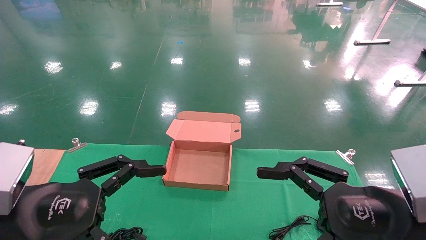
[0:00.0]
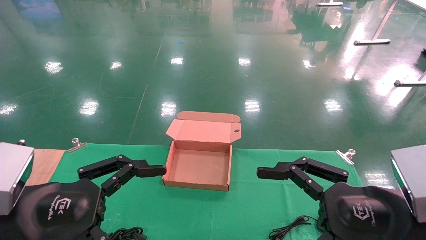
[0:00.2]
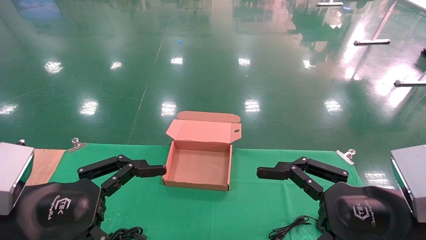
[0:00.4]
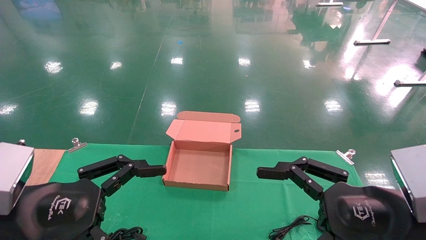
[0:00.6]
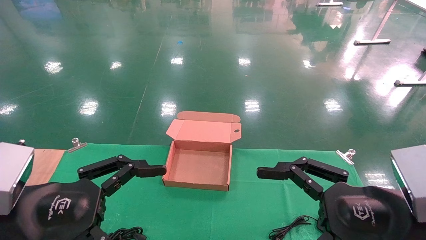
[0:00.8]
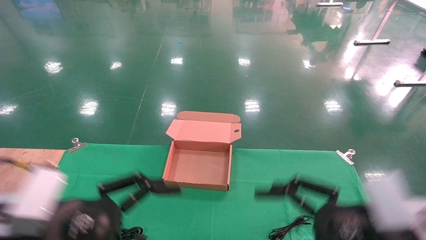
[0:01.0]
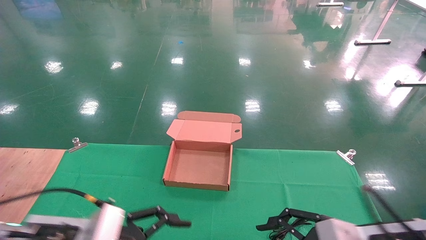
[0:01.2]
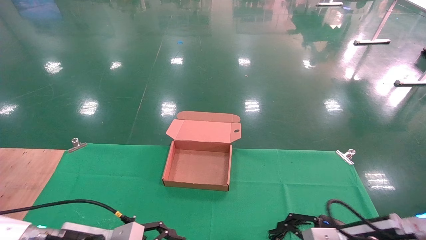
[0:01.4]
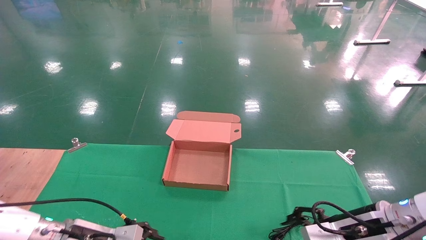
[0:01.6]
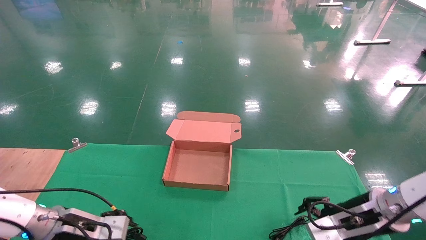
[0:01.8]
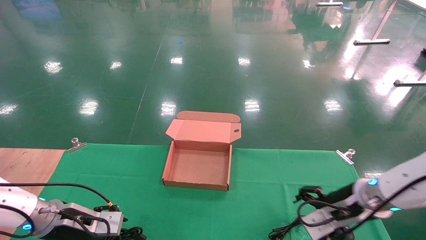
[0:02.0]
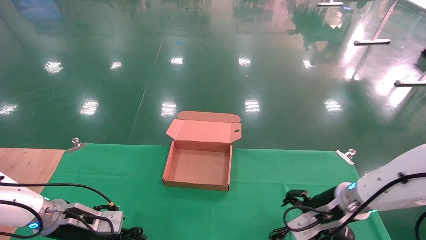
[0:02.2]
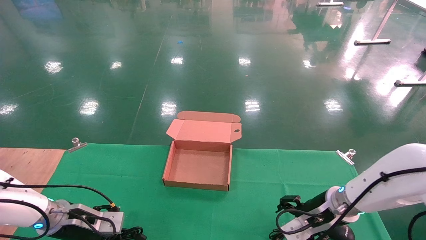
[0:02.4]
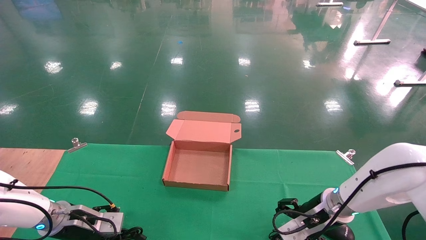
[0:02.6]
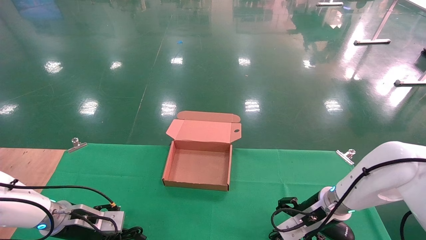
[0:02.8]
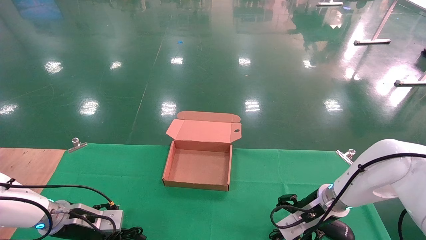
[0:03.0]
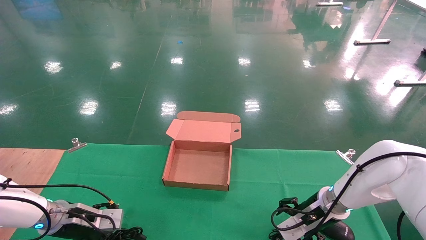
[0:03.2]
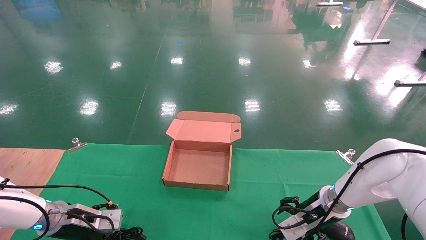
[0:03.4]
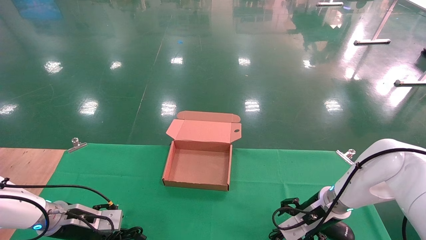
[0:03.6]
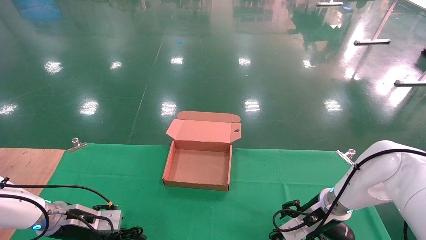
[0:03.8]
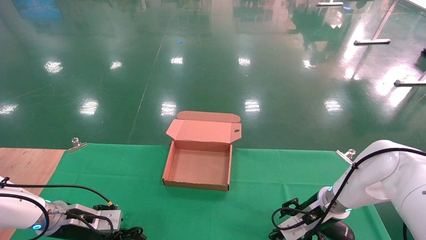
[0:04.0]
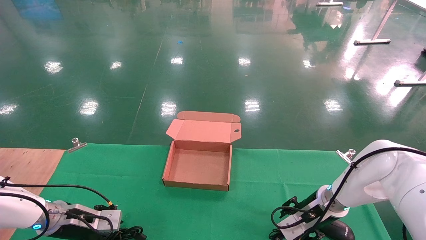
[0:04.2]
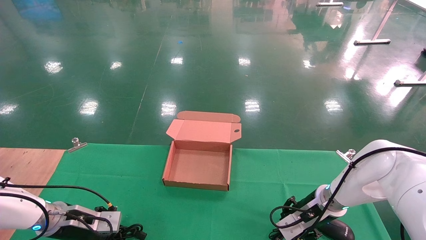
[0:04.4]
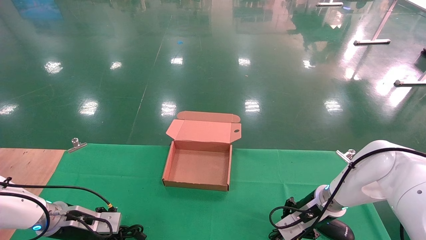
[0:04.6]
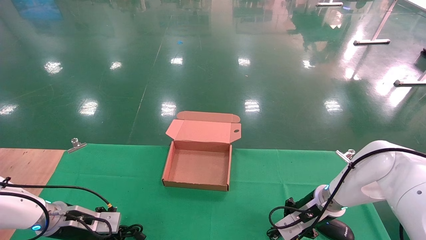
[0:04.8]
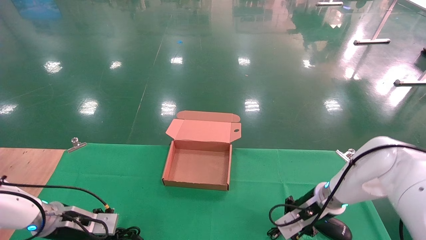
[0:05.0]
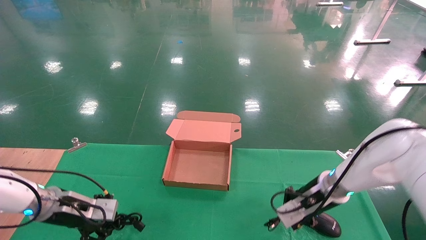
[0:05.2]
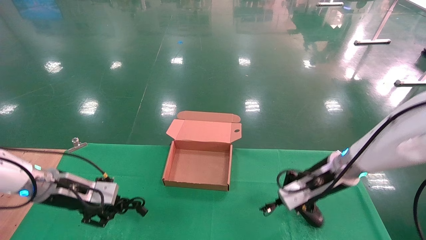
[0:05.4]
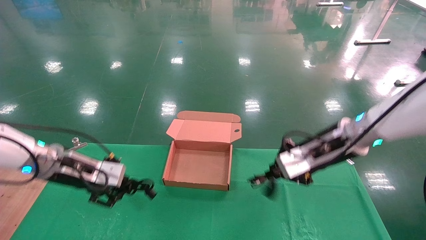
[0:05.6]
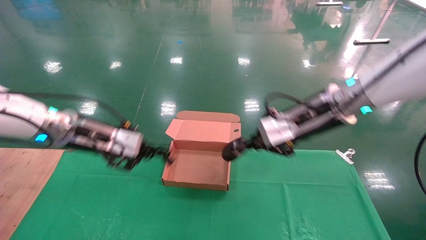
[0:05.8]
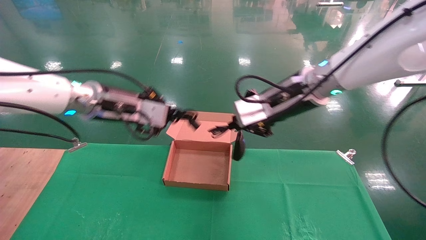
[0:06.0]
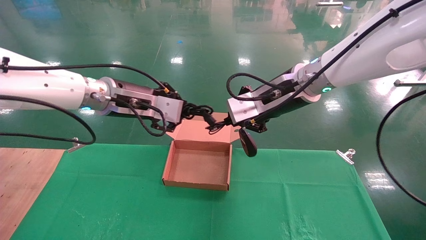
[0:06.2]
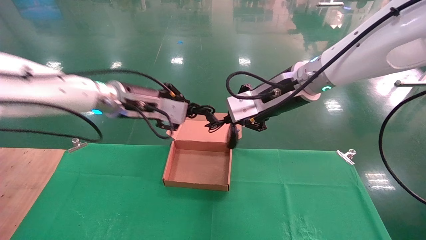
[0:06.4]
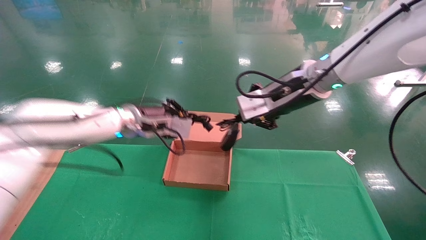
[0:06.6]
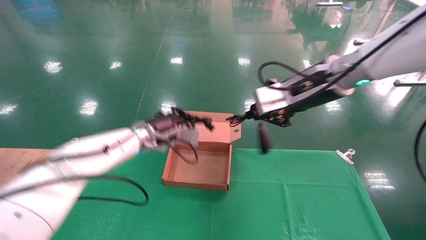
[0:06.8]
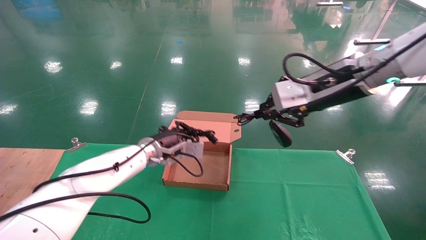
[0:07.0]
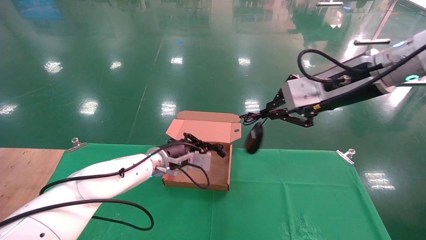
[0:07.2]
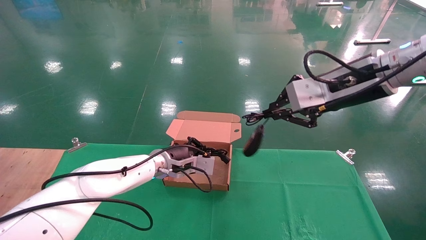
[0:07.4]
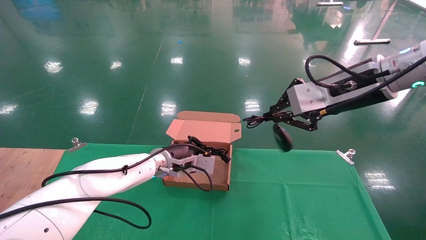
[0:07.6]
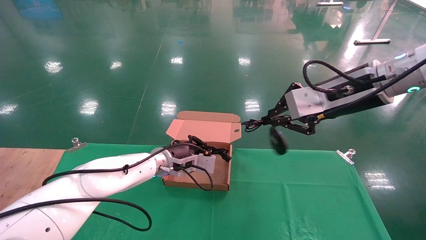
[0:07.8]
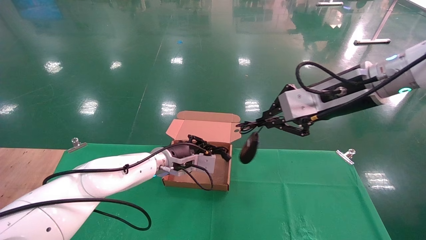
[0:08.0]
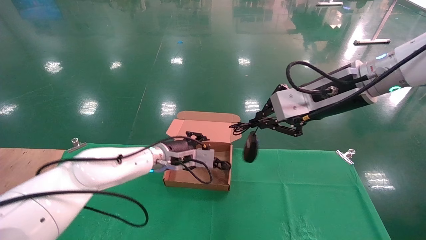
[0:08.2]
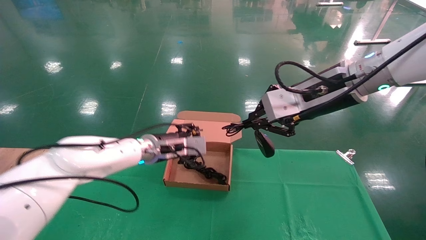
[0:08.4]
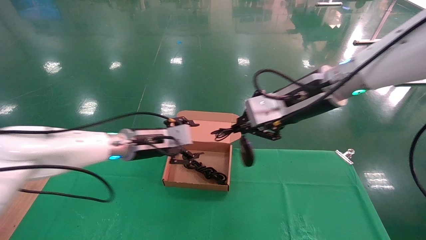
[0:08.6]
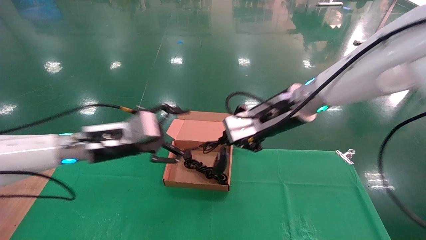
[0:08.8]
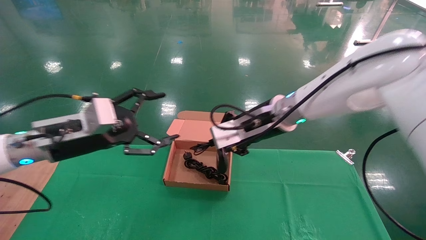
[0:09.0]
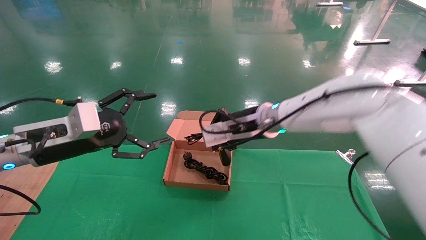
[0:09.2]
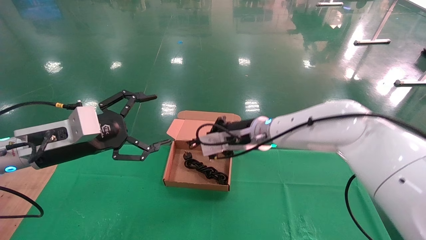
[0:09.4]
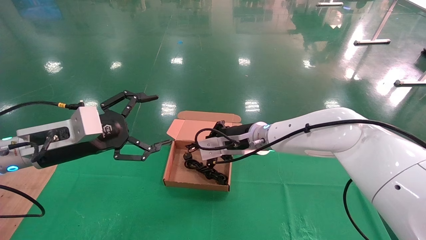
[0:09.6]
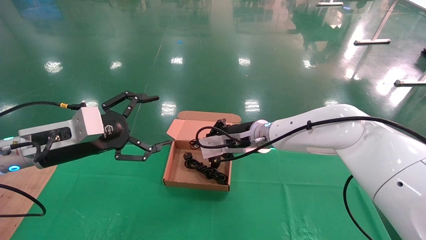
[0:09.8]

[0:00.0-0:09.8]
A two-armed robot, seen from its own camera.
Step, 0:01.2 to 0:05.4: Grab and lift both the mouse and power cord from the accessory packaging area at the same time.
0:00.0 to 0:01.4: The left gripper shifts about 15 cm downward and forward; the right gripper moves forward and downward, about 10 cm.
0:01.4 to 0:02.8: The right gripper is displaced forward by approximately 15 cm, while the left gripper shifts approximately 15 cm forward and to the left.
0:02.8 to 0:04.2: The left gripper closes.
0:04.2 to 0:05.6: The grippers both shift upward by about 15 cm. The left gripper closes its fingers, while the right gripper closes.
0:05.6 to 0:07.0: The right gripper heads upward, covering some 10 cm. The left gripper heads to the right and forward, covering about 20 cm.
0:07.0 to 0:08.4: The left gripper opens its fingers.
0:08.4 to 0:09.8: The left gripper travels to the left, backward and upward by roughly 20 cm, and opens up. The right gripper shifts about 20 cm downward, to the left and forward.

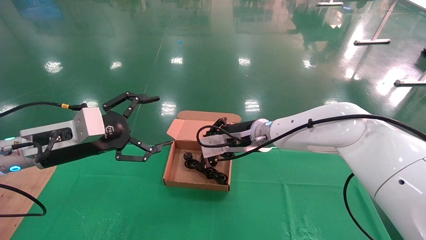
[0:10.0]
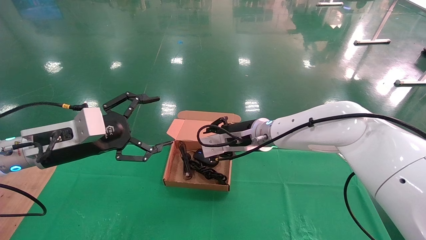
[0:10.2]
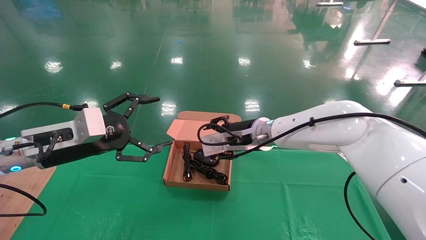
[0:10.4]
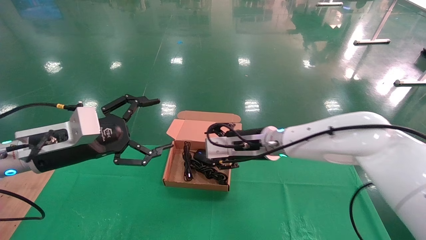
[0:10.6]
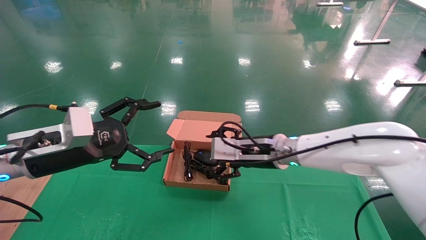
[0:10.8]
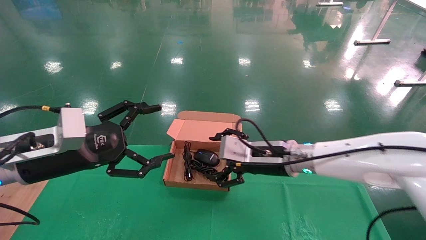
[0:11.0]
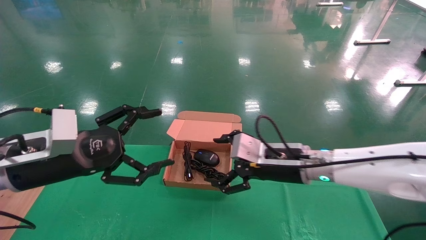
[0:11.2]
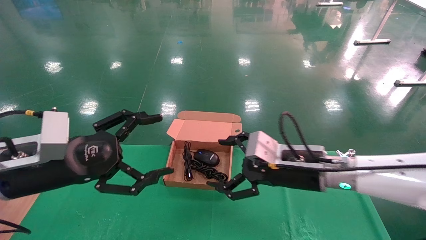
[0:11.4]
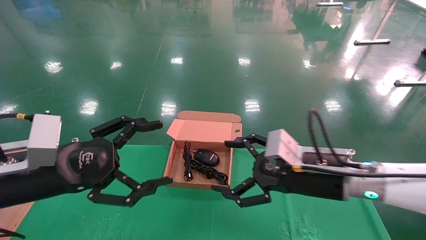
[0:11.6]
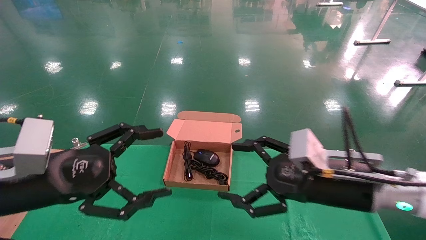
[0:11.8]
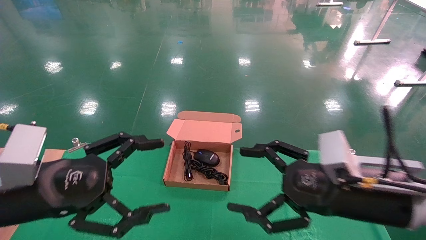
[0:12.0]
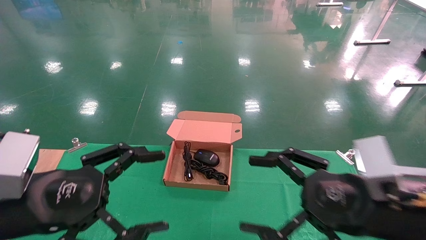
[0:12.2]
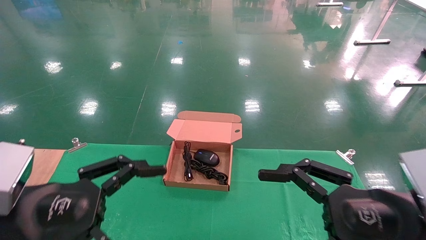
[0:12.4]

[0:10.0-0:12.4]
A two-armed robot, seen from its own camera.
0:10.0 to 0:11.2: The left gripper shifts roughly 5 cm backward, while the right gripper is displaced backward and to the right by approximately 10 cm, and opens its fingers.
0:11.2 to 0:12.4: The right gripper travels backward and to the right by approximately 20 cm. Meanwhile the left gripper goes some 10 cm backward.

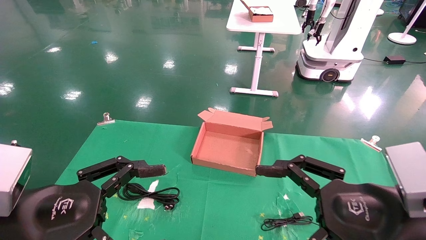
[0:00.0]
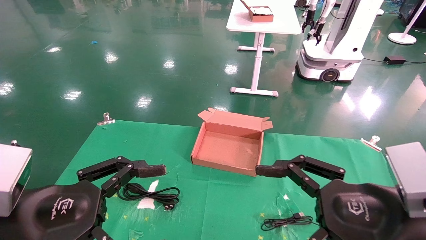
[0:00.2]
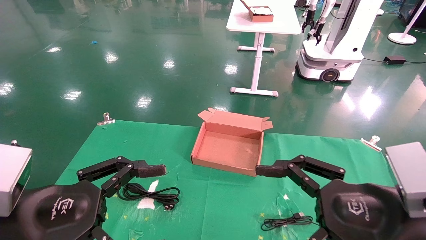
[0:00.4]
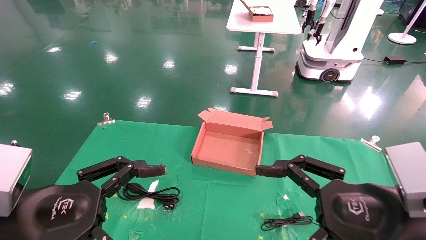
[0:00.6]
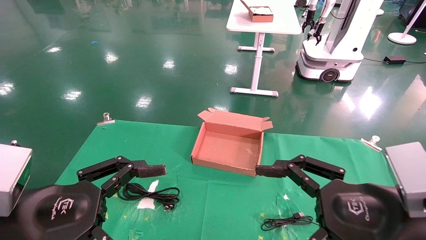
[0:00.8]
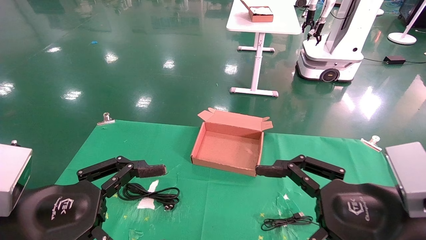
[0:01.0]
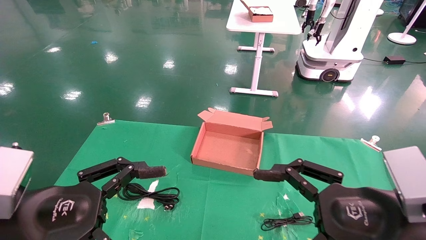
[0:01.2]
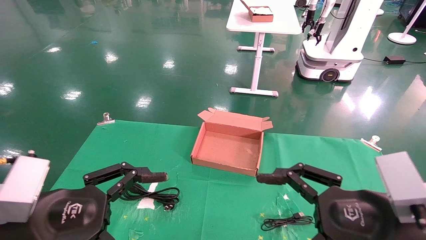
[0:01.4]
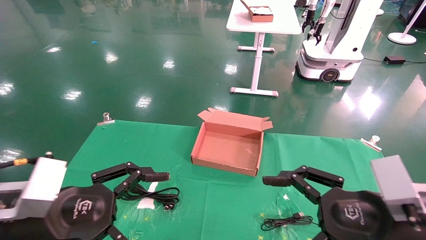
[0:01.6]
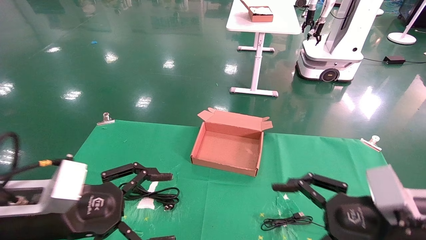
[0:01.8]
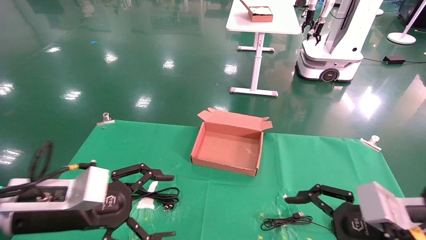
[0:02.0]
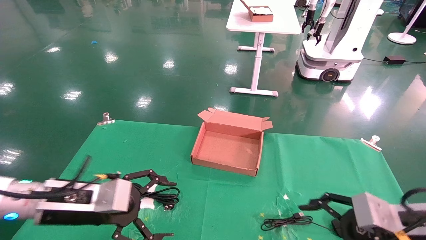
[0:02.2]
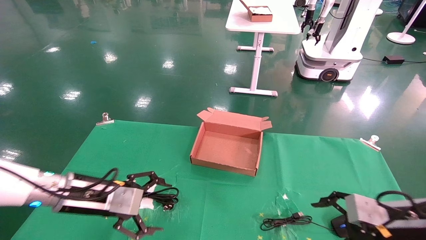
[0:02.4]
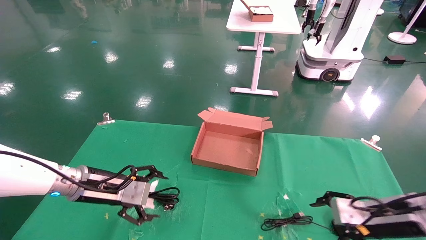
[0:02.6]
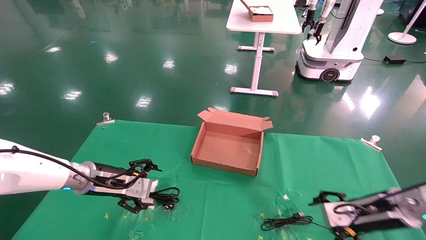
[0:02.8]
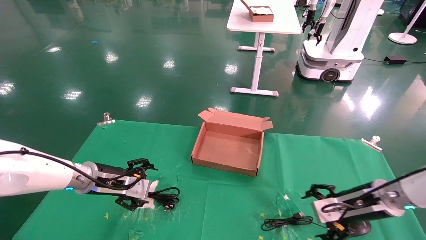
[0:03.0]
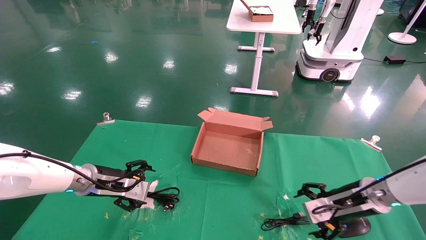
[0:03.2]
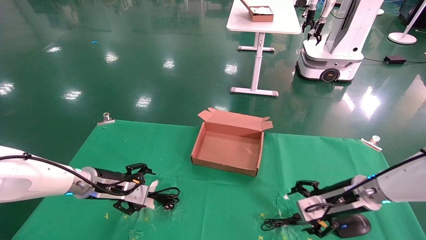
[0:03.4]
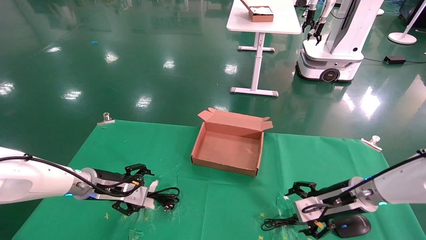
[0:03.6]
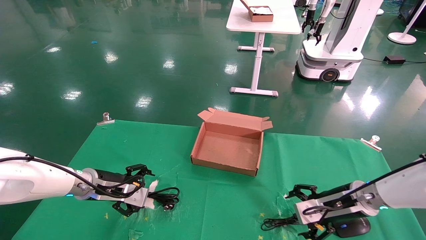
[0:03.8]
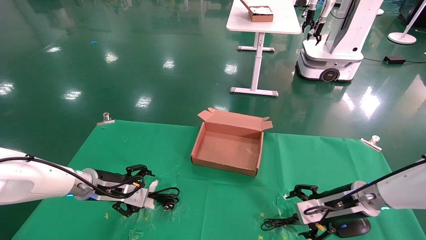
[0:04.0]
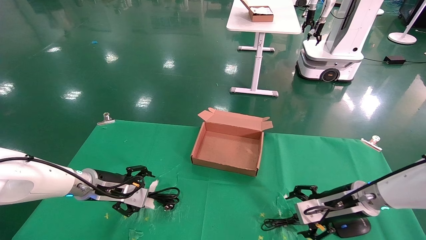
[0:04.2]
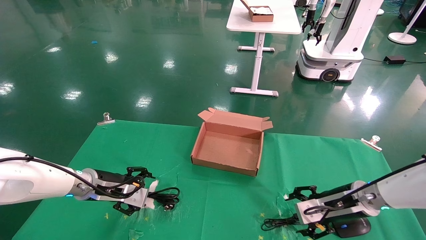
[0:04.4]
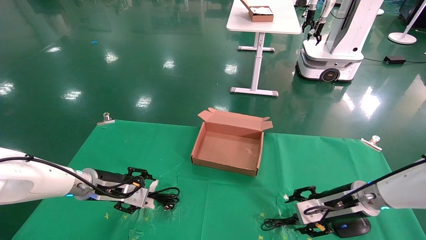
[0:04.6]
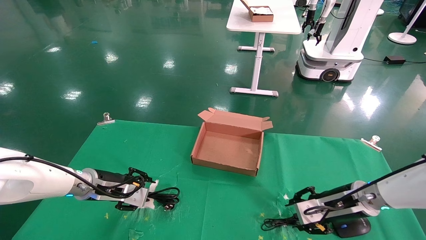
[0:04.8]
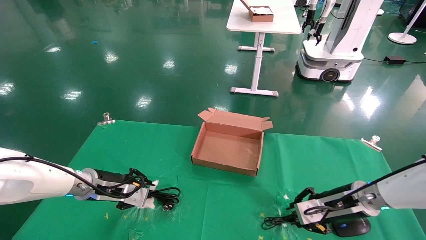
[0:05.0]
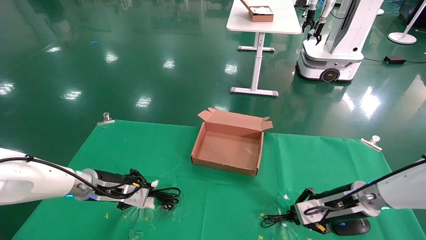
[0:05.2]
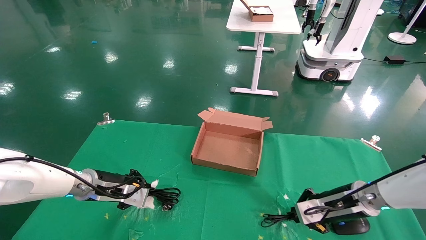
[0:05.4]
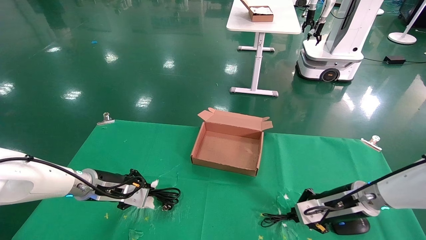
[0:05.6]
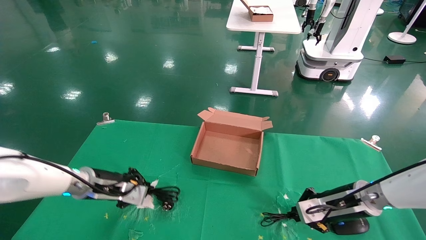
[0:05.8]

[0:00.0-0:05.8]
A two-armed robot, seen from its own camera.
0:00.0 to 0:01.4: The grippers make only small movements.
0:01.4 to 0:02.8: The right gripper moves forward, downward and to the right, about 20 cm. The left gripper moves forward, approximately 20 cm.
0:02.8 to 0:04.4: The right gripper changes place by approximately 5 cm.
0:04.4 to 0:05.8: The left gripper closes its fingers. Meanwhile the right gripper closes.
